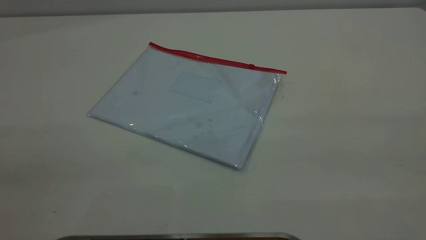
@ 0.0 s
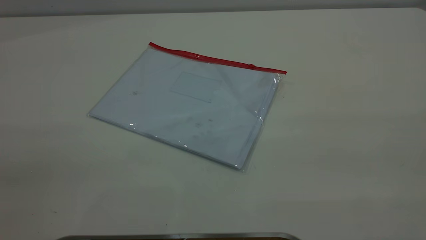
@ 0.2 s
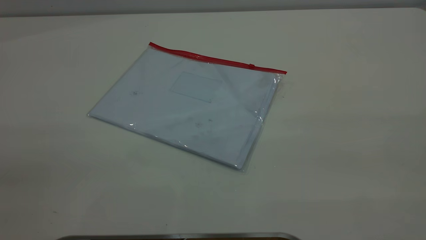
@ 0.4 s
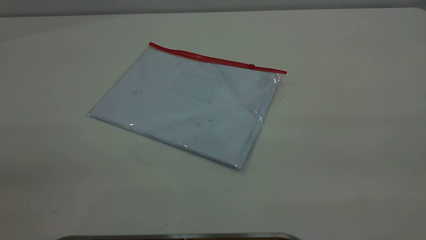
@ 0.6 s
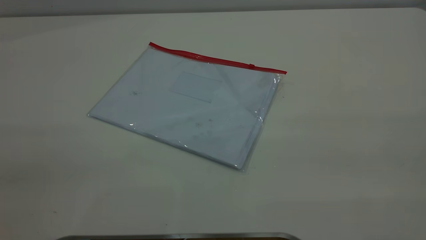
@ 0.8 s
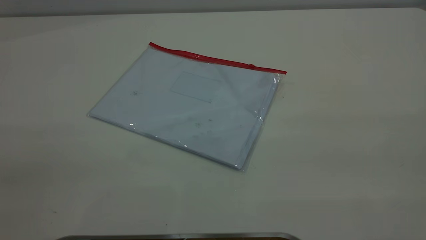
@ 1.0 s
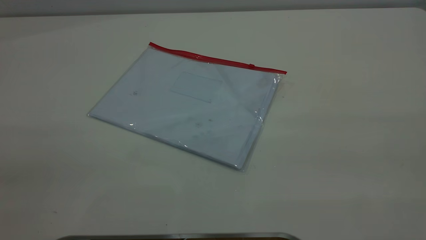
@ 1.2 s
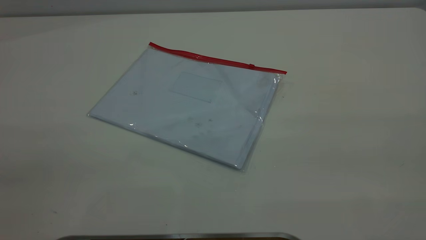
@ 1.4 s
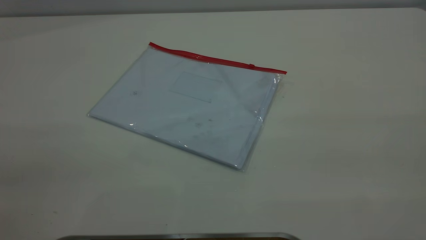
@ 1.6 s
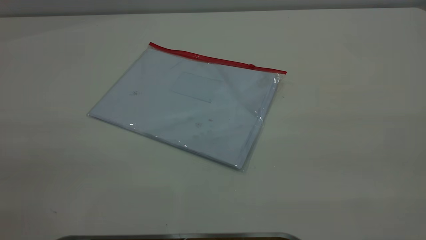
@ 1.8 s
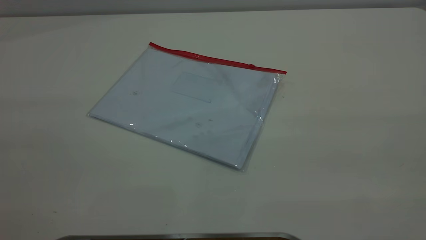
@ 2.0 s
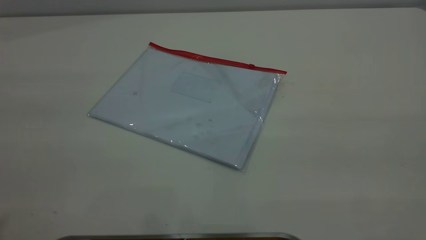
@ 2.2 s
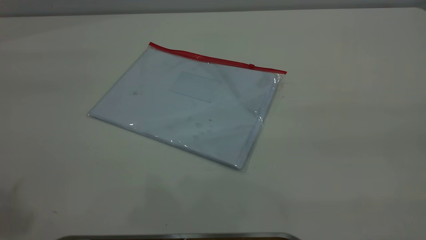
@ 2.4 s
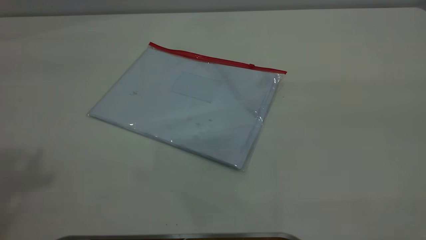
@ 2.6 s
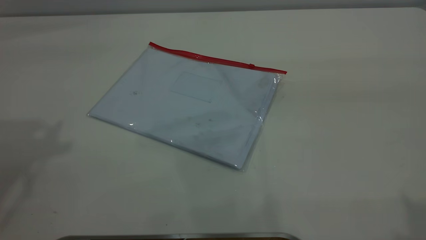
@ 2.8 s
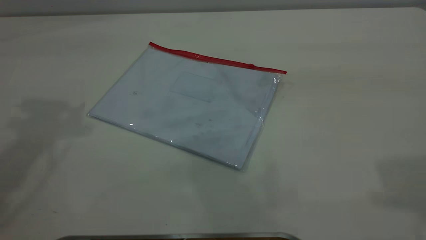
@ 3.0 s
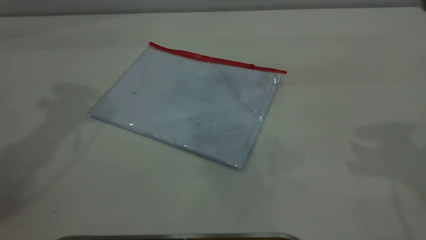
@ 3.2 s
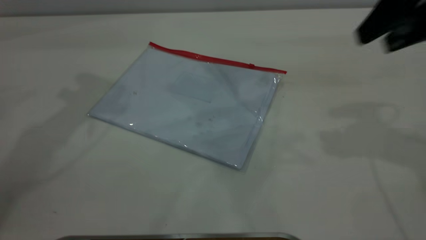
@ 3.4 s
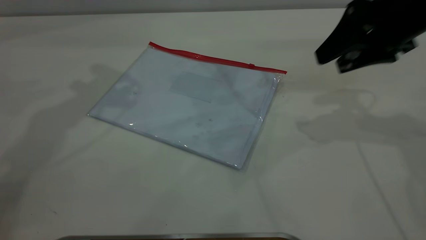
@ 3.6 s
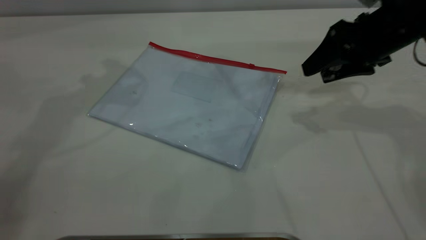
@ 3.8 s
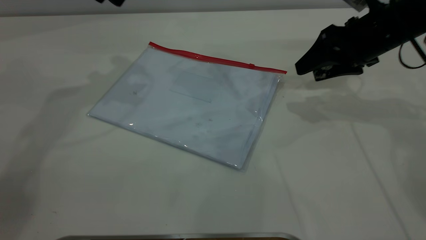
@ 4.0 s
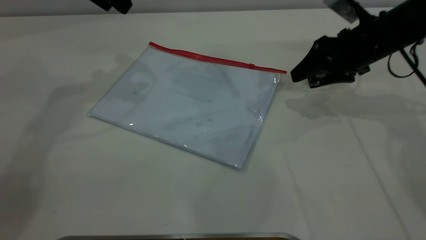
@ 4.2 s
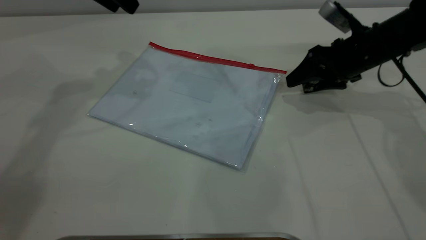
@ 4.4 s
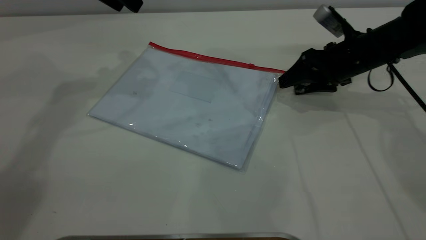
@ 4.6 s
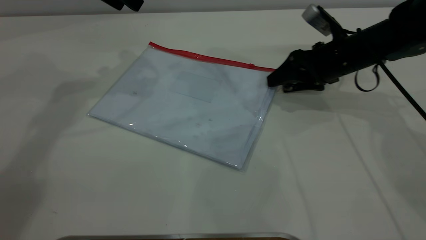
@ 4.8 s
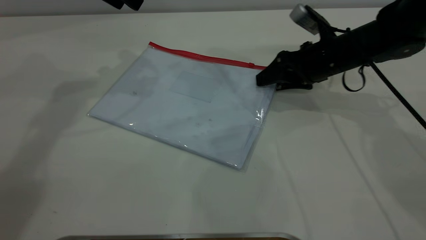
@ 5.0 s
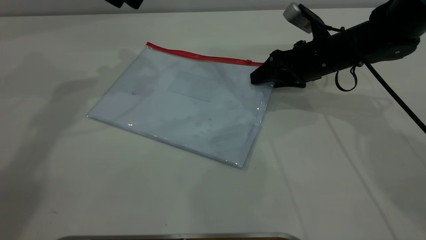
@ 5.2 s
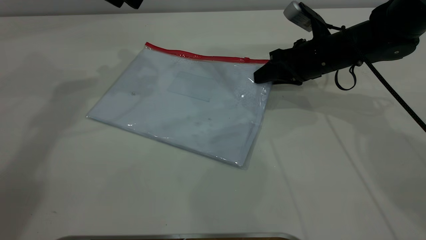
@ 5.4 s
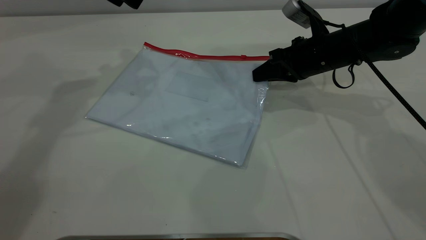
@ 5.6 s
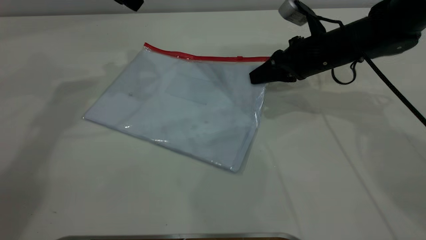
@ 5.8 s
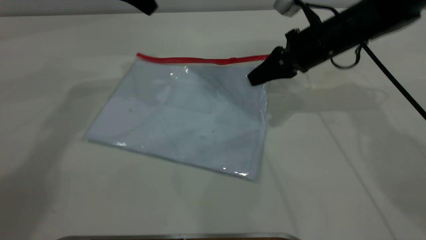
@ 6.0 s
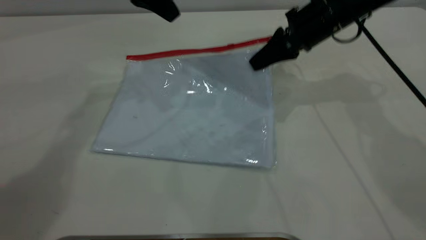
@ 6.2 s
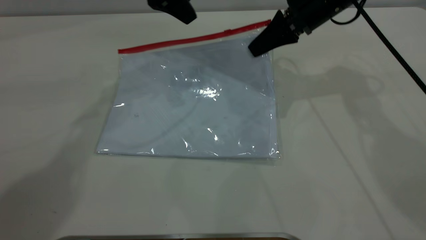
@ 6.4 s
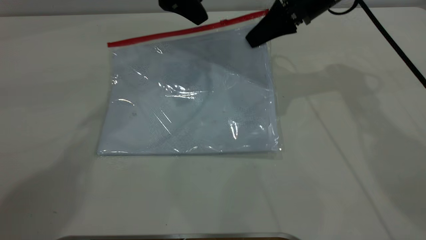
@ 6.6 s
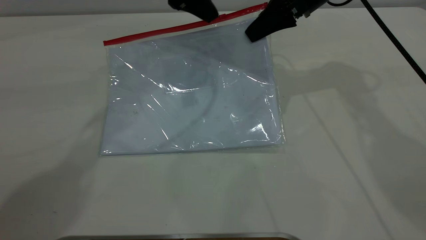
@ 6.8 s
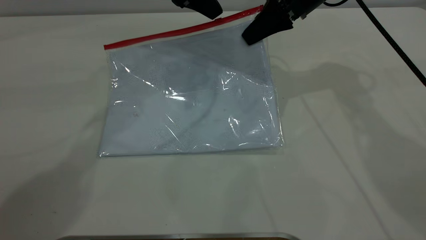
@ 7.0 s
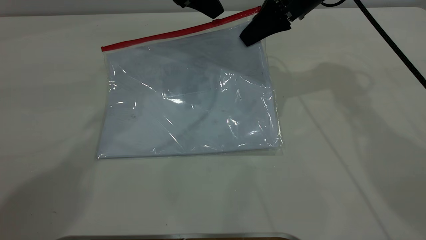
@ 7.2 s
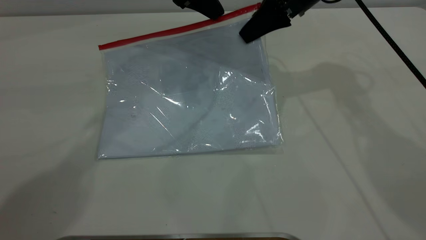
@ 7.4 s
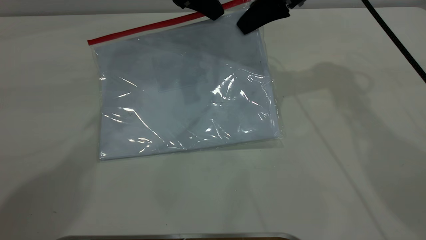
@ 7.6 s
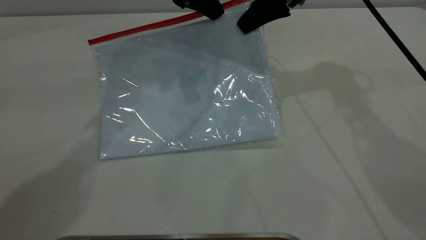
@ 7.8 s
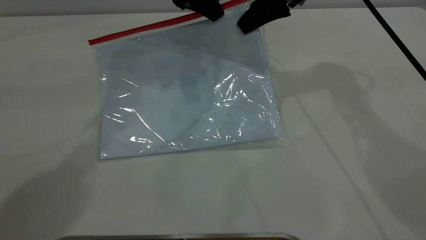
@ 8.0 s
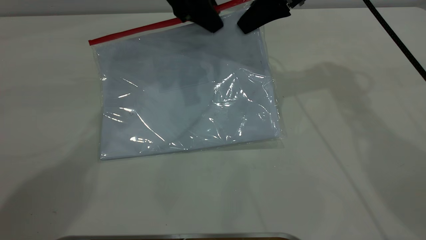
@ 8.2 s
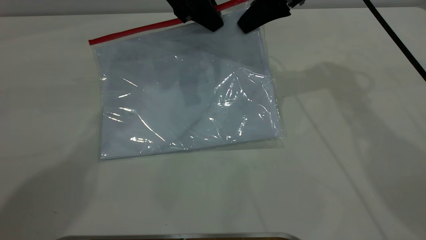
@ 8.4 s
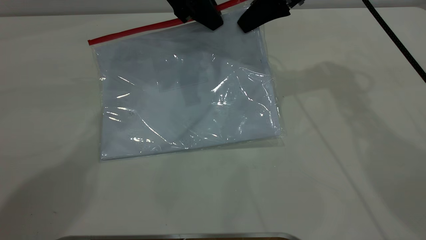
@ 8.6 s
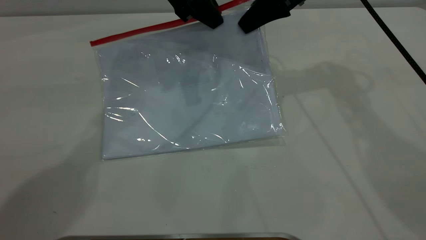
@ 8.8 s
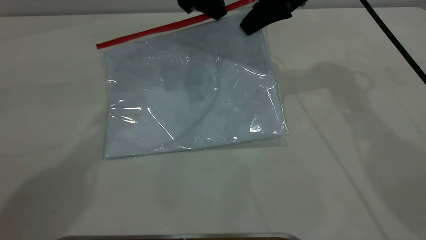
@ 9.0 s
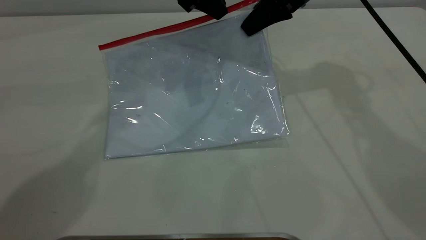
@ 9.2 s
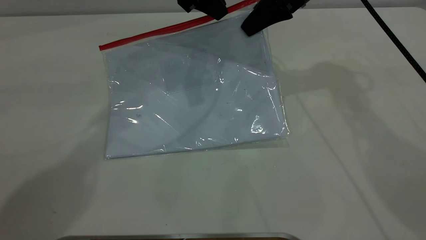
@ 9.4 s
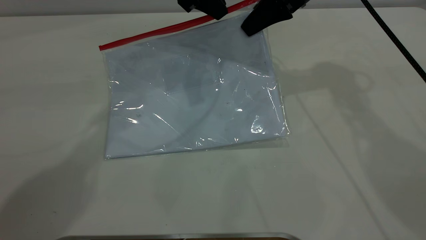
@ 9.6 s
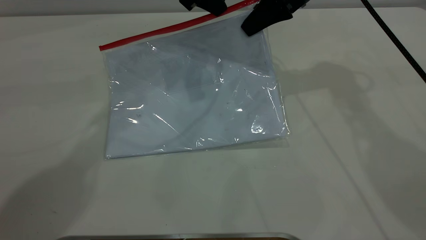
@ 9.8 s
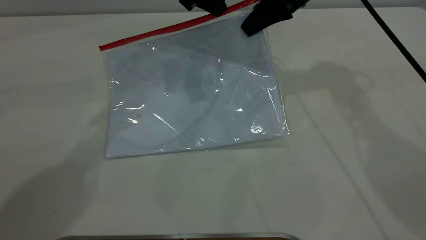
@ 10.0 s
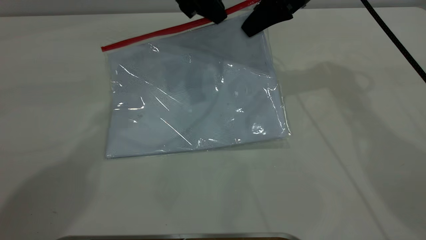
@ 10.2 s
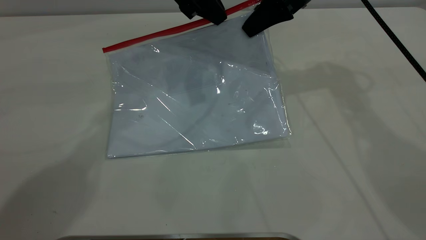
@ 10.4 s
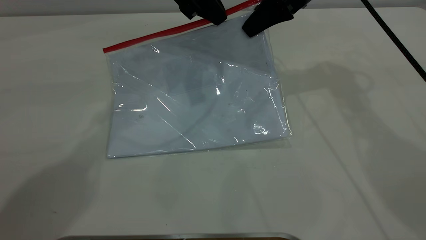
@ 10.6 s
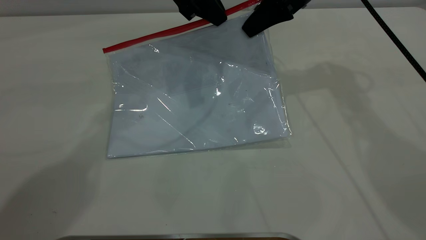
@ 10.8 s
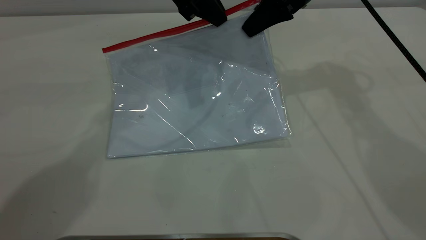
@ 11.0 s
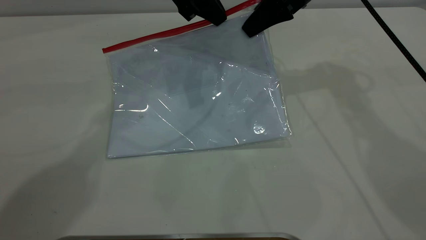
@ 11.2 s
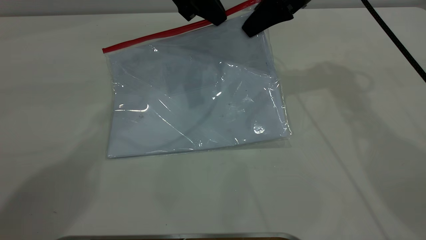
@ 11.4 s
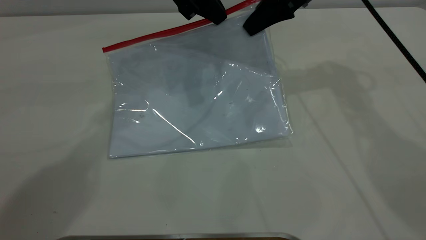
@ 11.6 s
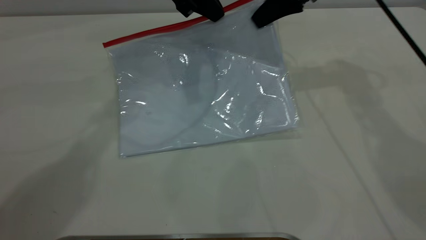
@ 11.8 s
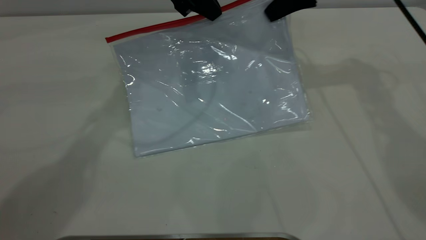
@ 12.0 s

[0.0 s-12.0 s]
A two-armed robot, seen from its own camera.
Step, 0.0 to 6.2 s: Pick up the transparent plastic bag with the right gripper.
0.0 to 1.6 s: Neither gripper changes place.
3.0 to 4.4 s: The left gripper is displaced forward, downward and to the right by about 20 cm. Meanwhile the right gripper travels downward and forward by roughly 35 cm.
4.4 to 6.0 s: The right gripper goes some 5 cm to the left, and closes its fingers.
6.0 to 7.6 s: The left gripper heads to the right, covering roughly 10 cm, while the right gripper goes roughly 10 cm upward.
7.6 to 9.0 s: The left gripper closes up.
9.0 to 10.4 s: Both grippers stay about where they are.
10.4 to 12.0 s: The right gripper is displaced to the right by some 5 cm.

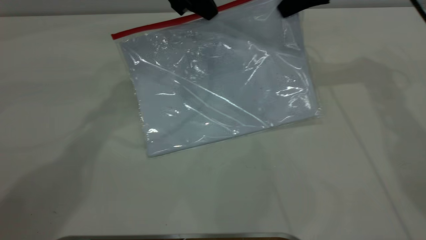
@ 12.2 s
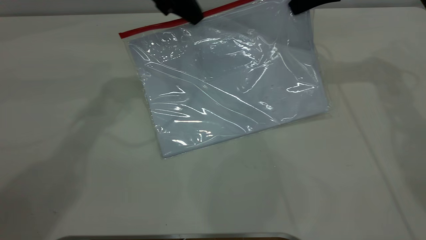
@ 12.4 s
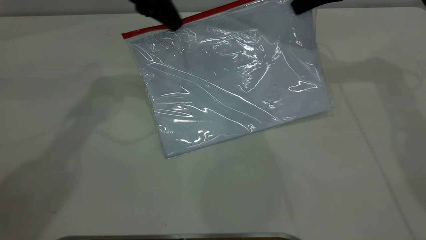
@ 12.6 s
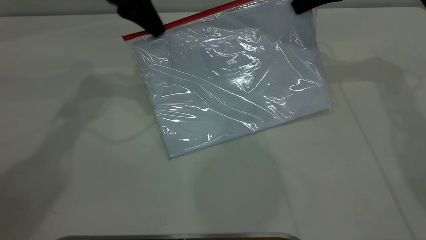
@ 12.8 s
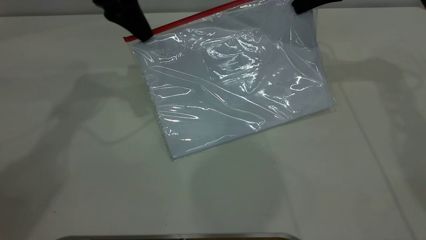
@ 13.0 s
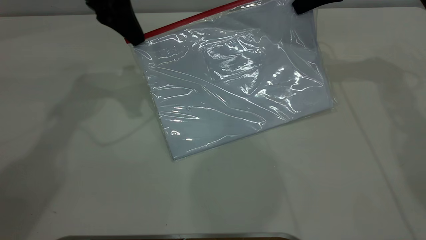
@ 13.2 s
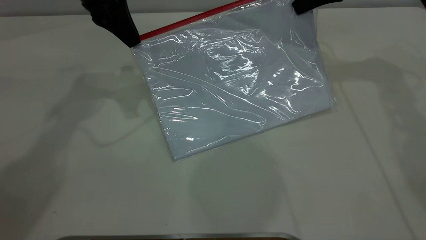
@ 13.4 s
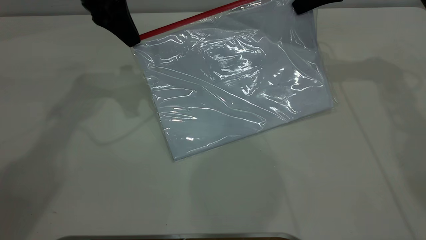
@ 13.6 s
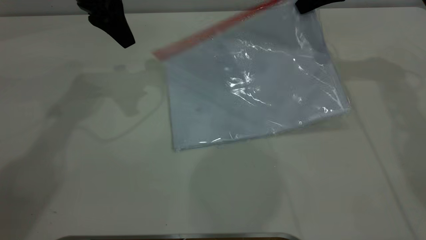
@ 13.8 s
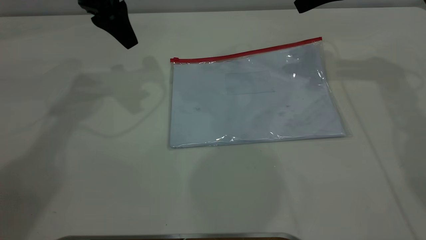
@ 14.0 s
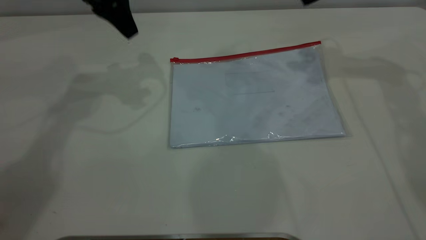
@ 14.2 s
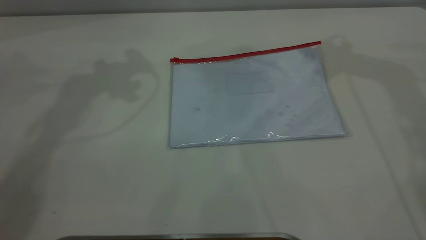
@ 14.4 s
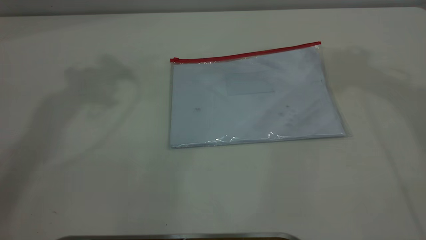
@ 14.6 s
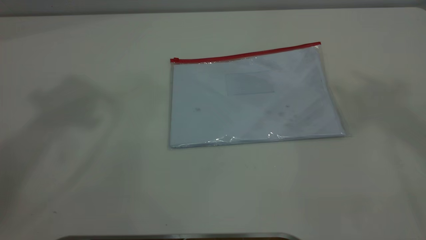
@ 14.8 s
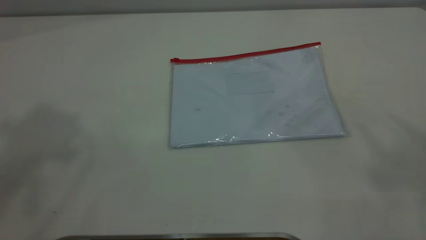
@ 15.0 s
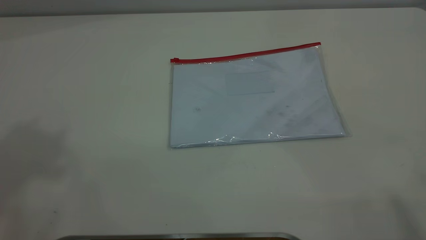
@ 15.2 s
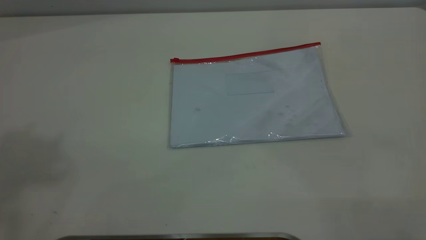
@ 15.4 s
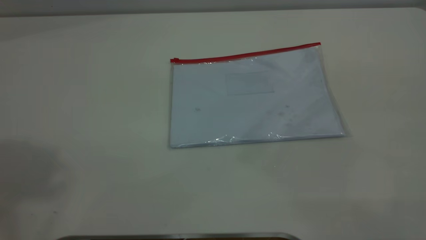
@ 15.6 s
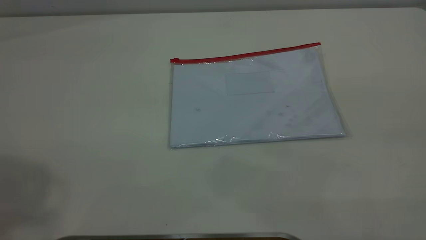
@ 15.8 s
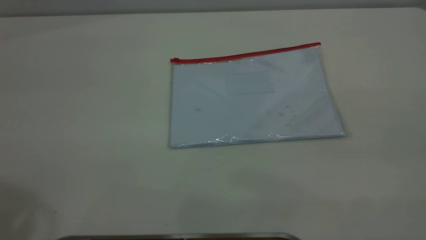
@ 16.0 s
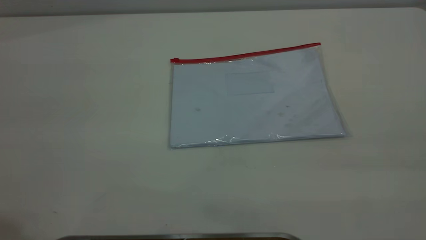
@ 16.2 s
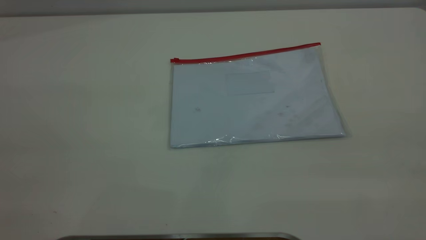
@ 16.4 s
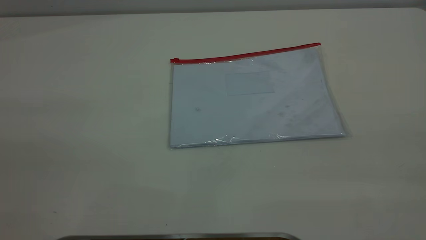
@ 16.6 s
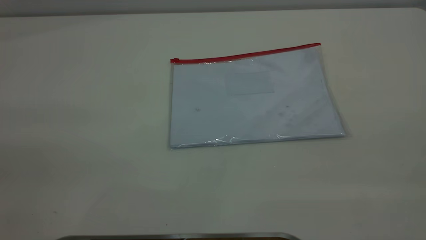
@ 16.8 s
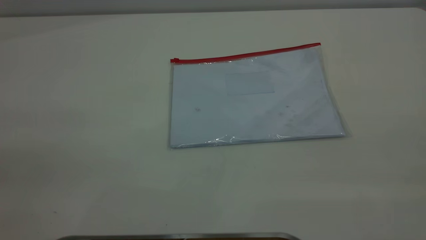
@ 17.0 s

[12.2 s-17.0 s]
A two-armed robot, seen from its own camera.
Step, 13.8 to 14.8 s: Place the transparent plastic bag.
12.2 to 13.8 s: The left gripper moves to the left, about 10 cm, and opens its fingers.
13.8 to 15.4 s: The left gripper goes approximately 50 cm upward and backward, and opens up; the right gripper goes approximately 60 cm backward and upward, and opens.
